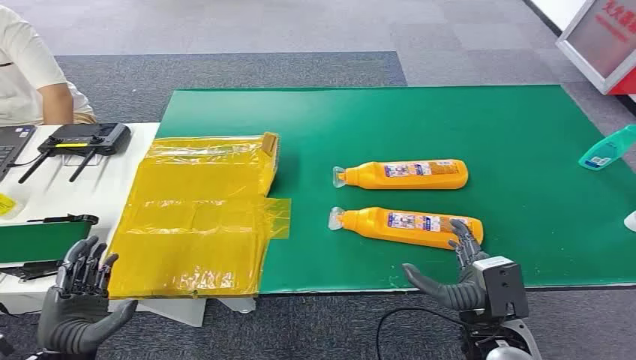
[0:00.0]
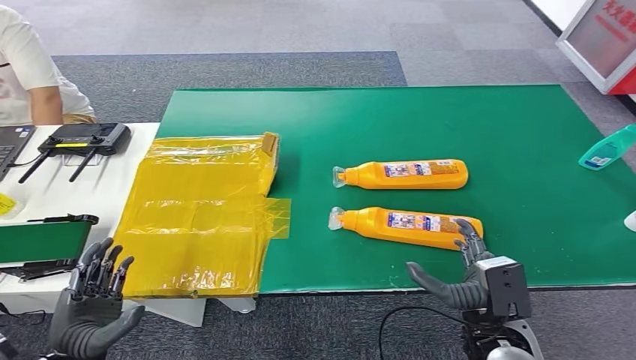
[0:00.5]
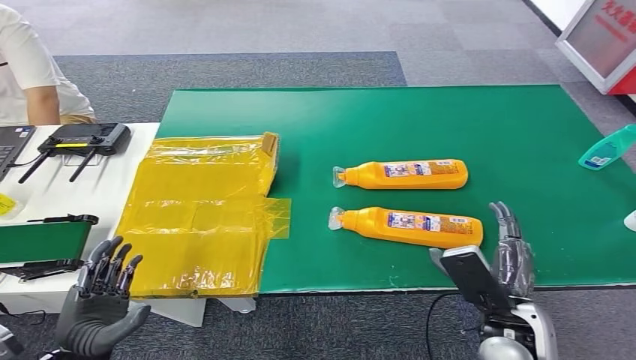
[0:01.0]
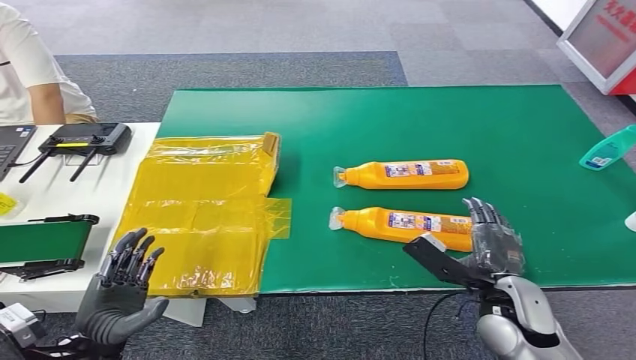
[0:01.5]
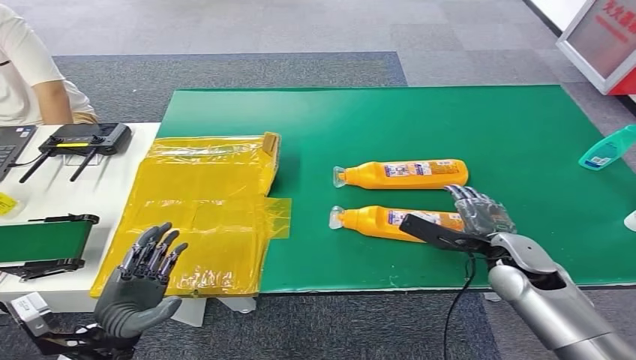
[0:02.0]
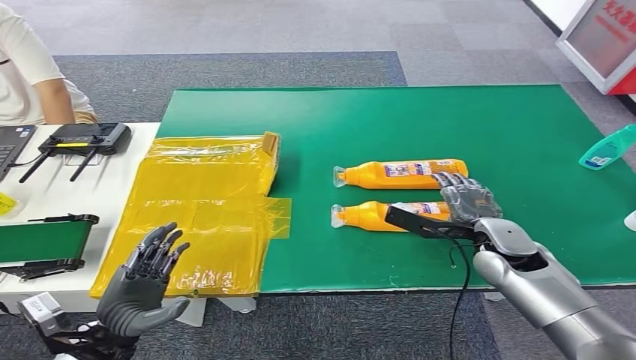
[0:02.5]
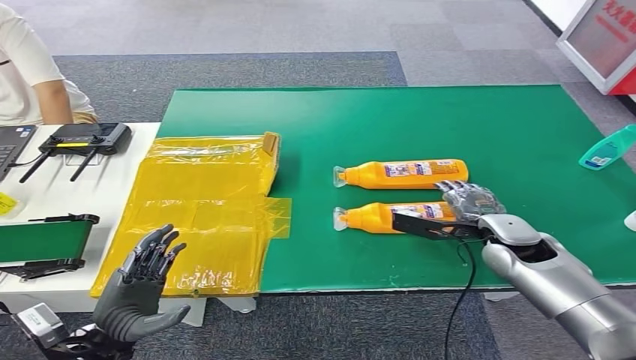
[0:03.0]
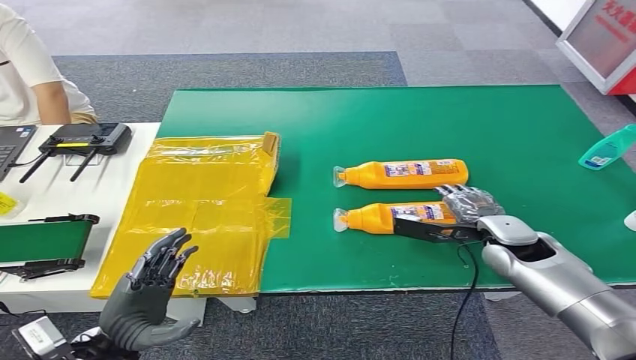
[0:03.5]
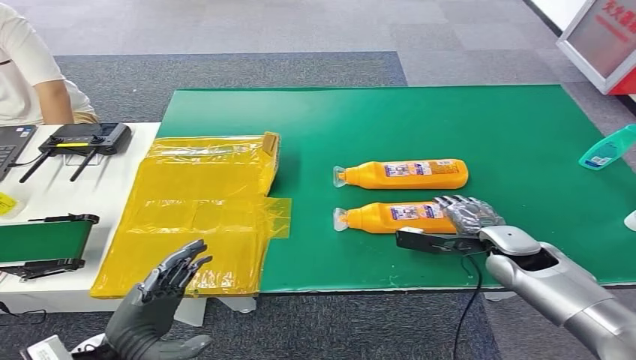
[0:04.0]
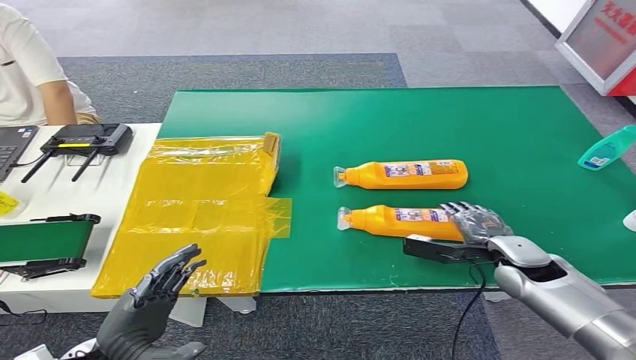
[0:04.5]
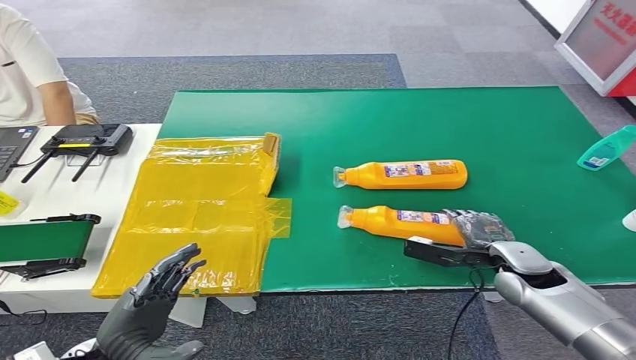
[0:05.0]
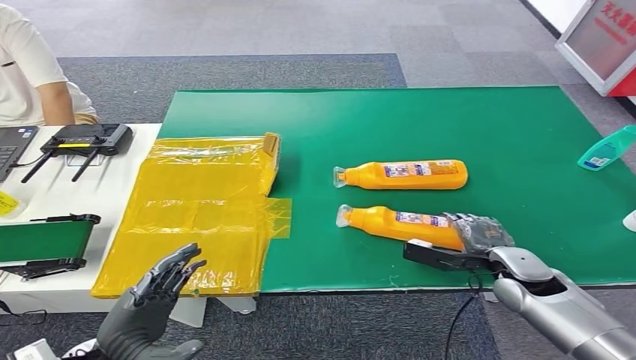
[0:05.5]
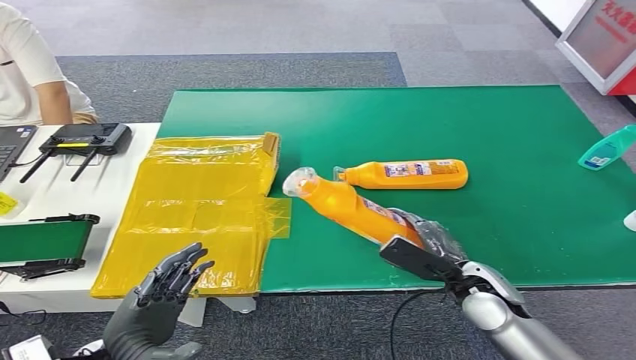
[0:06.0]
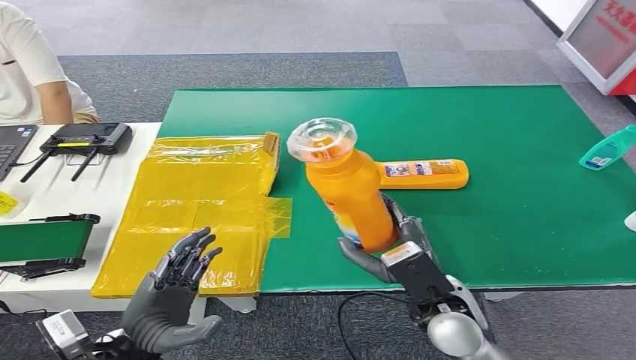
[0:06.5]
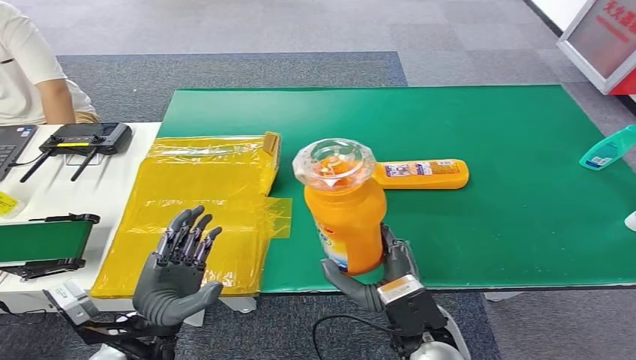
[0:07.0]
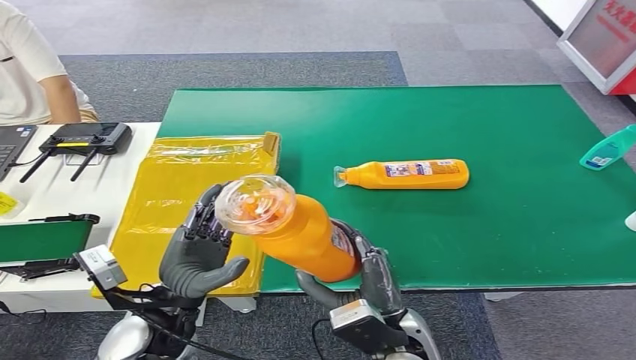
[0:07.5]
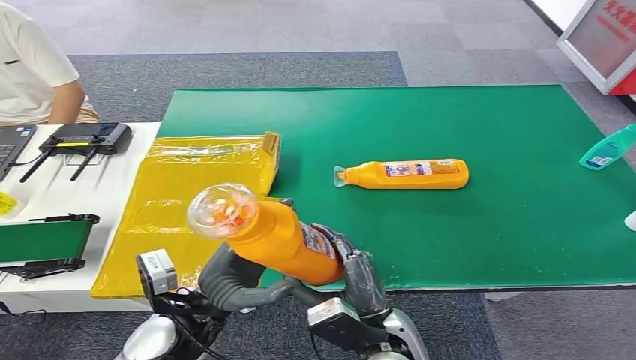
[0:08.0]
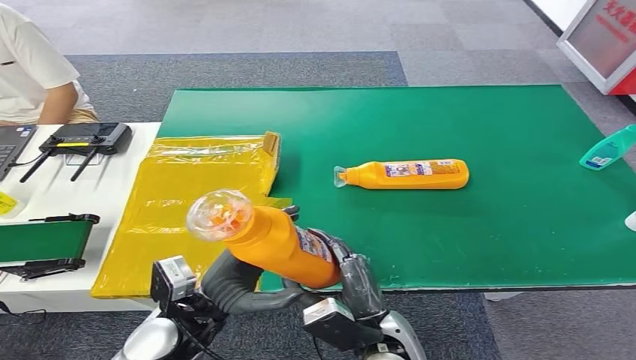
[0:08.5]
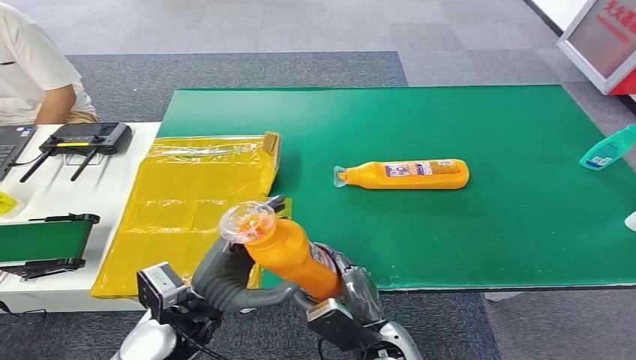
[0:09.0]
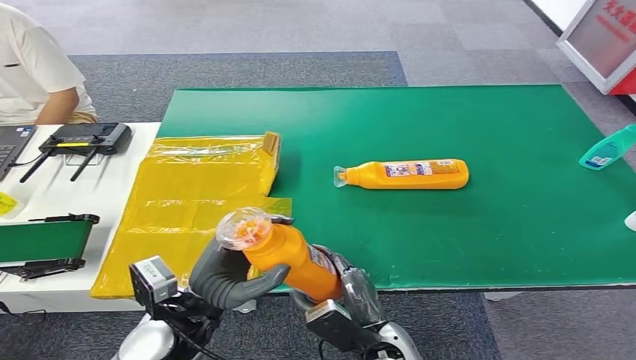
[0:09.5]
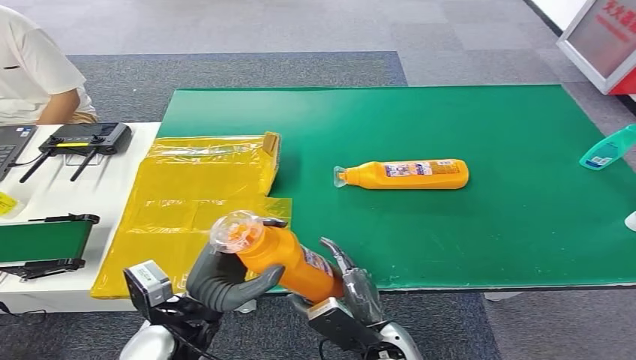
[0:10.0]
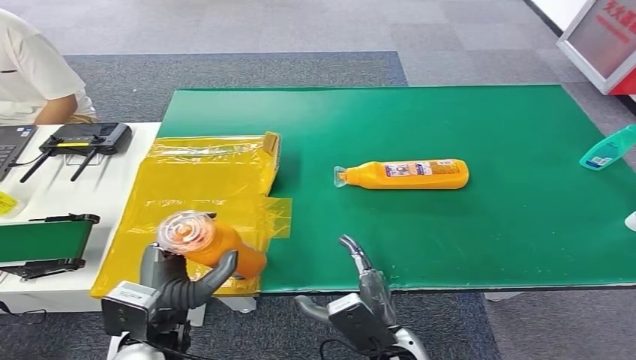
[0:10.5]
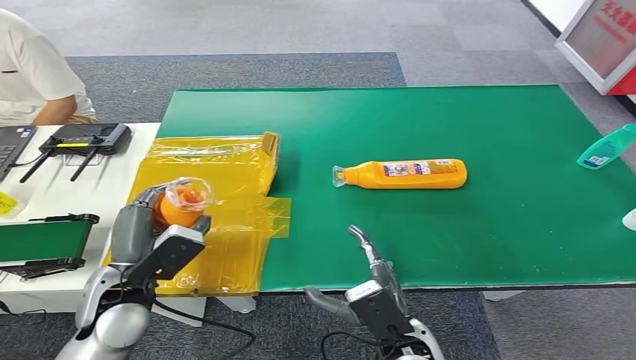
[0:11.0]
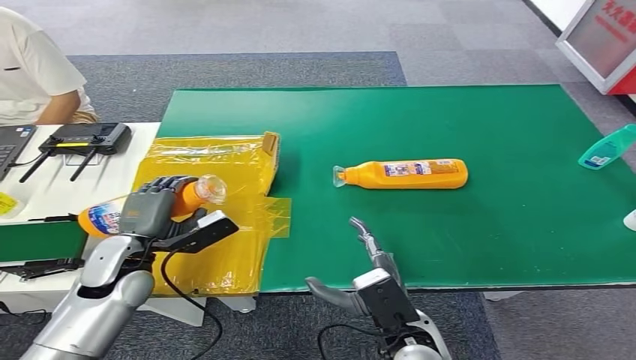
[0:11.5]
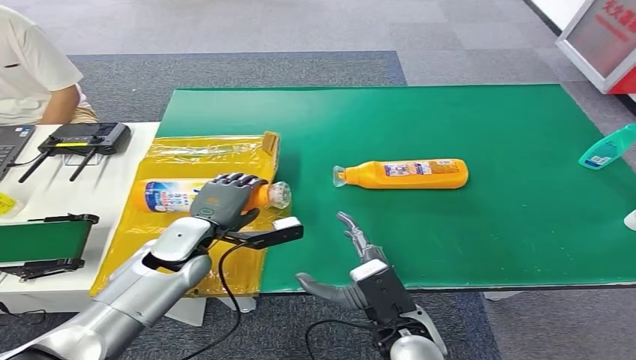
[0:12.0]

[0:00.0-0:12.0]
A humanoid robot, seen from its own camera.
Step, 0:00.0 to 0:07.0: Pick up the bottle from the table.
Step, 0:07.5 to 0:12.0: Turn the bottle to the front side.
0:04.0 to 0:06.0: The right hand heads backward and to the left, covering about 10 cm.
0:06.0 to 0:08.0: The right hand moves to the left and backward, some 15 cm; the left hand heads to the right and forward, covering some 10 cm.
0:08.0 to 0:10.0: The right hand heads downward, covering roughly 5 cm.
0:10.0 to 0:12.0: The left hand travels forward by about 15 cm. The right hand changes place by about 5 cm.

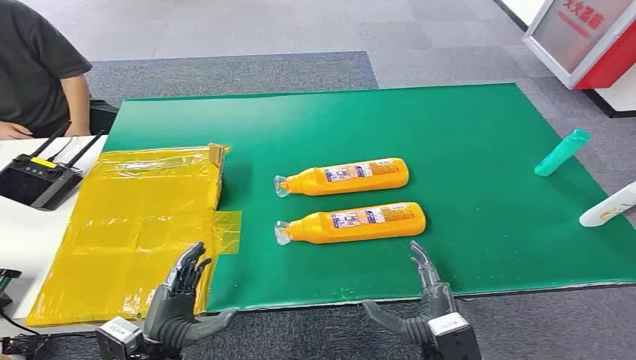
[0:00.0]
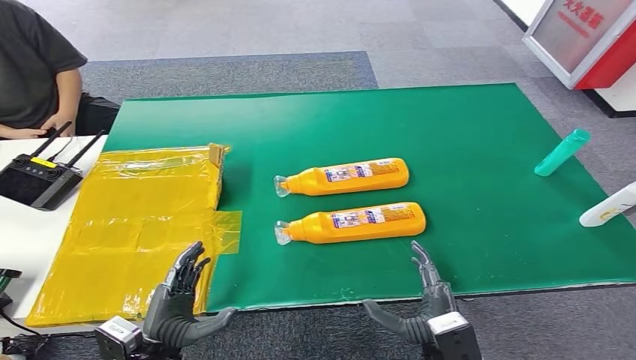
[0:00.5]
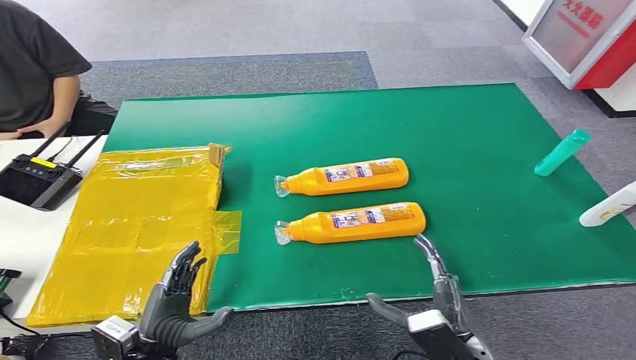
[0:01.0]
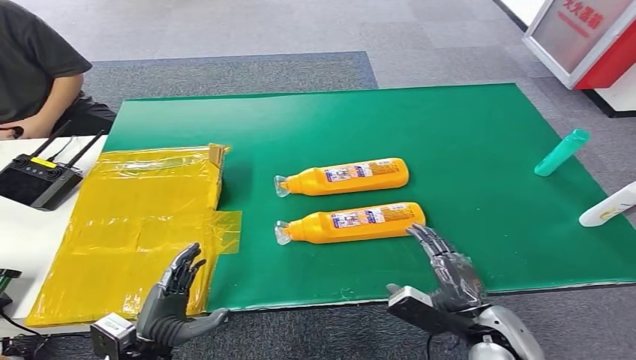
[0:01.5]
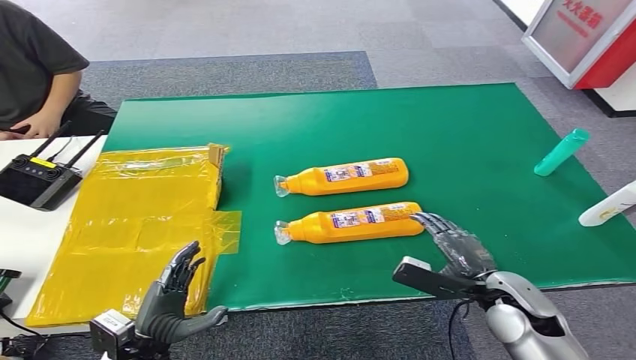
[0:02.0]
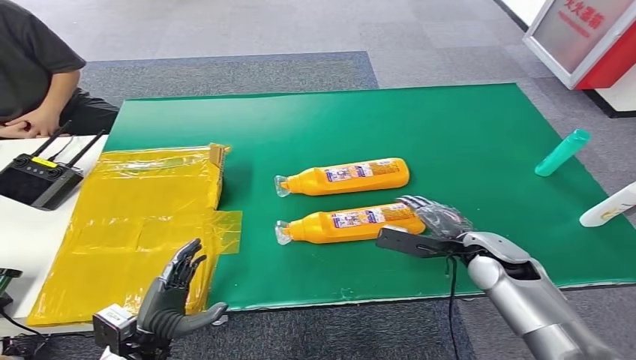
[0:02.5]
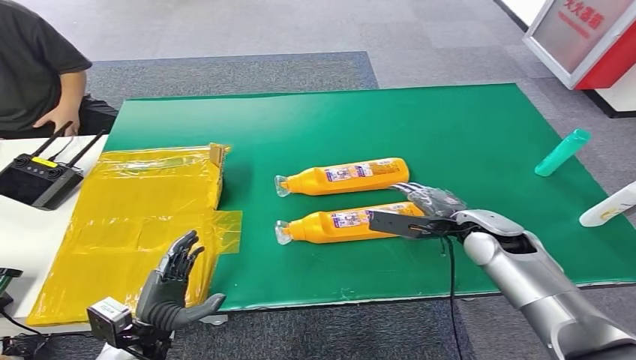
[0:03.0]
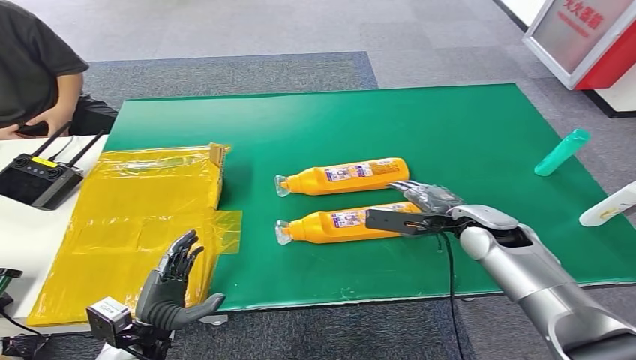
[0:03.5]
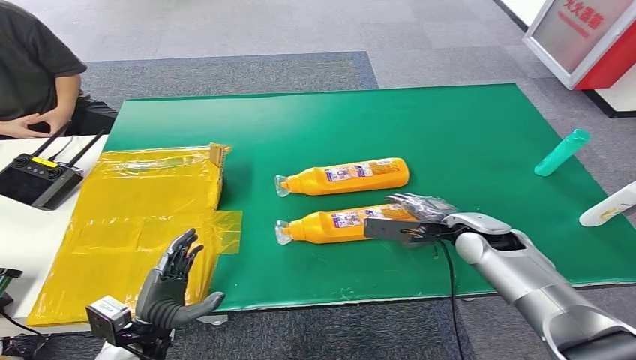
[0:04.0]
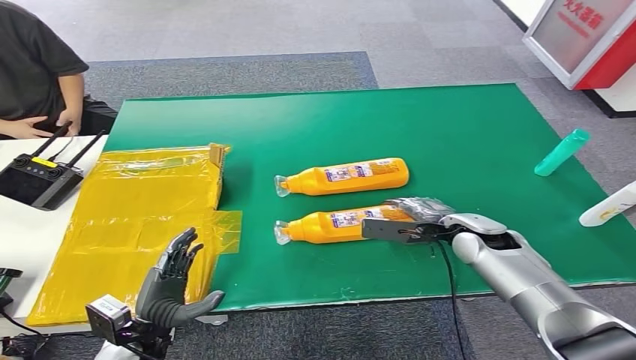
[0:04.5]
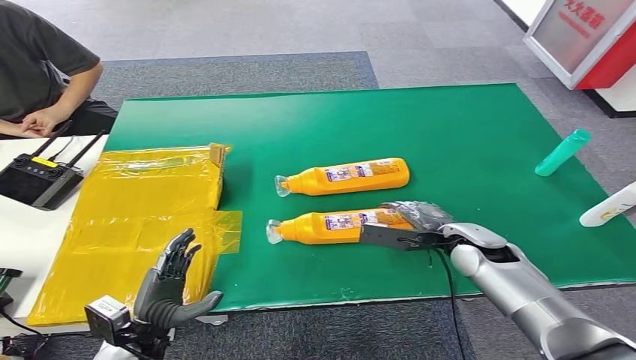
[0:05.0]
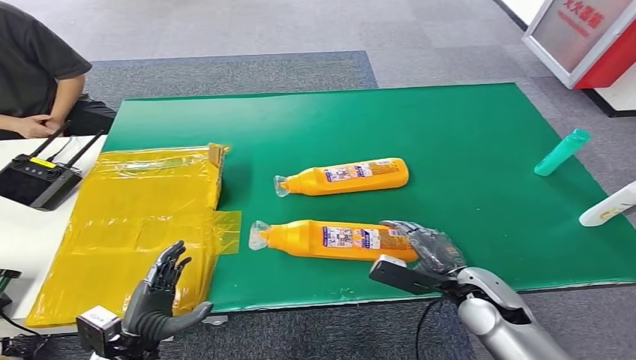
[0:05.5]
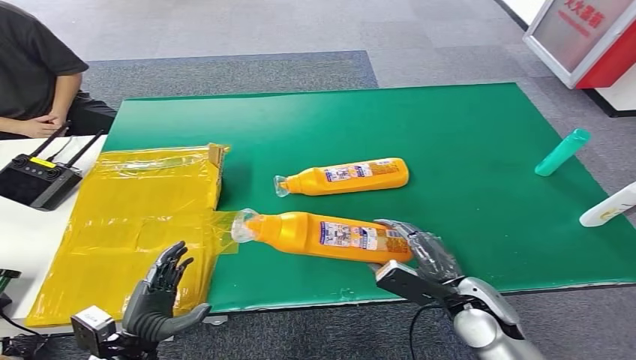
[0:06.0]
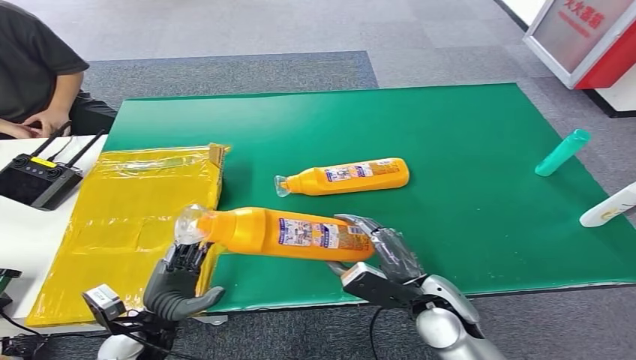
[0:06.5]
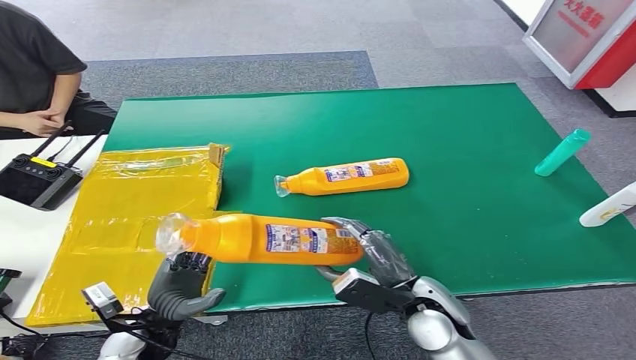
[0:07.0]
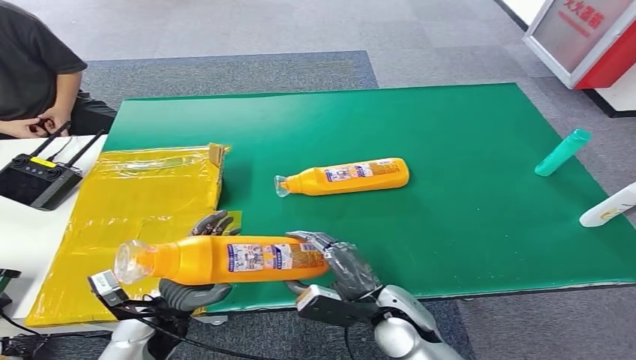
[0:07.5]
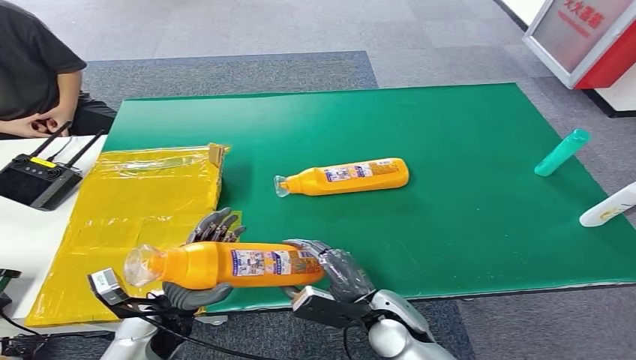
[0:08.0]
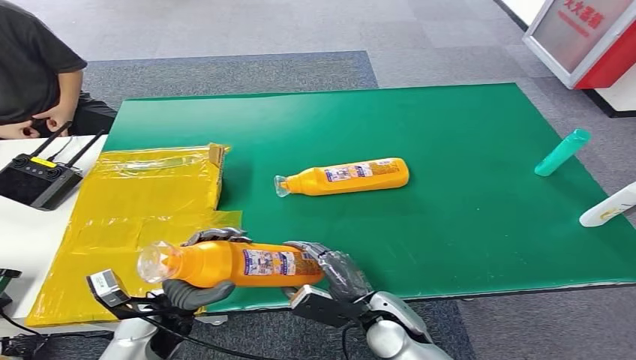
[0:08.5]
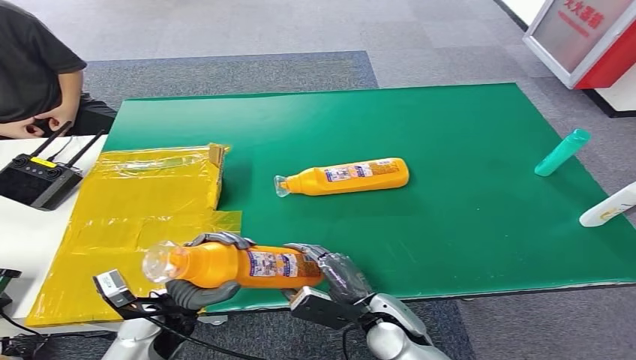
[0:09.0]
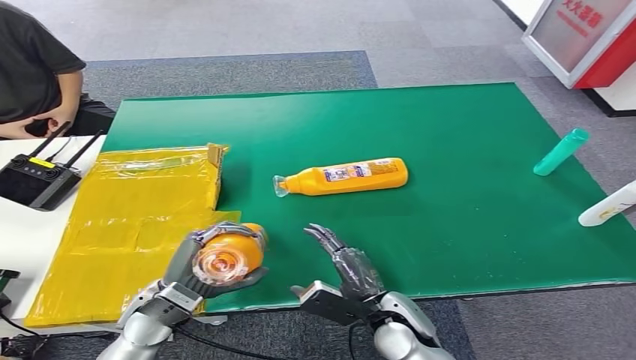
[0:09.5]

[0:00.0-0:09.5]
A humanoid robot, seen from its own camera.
Step, 0:00.0 to 0:06.0: Pick up the bottle from the table.
0:02.0 to 0:04.0: The right hand moves forward, about 15 cm.
0:04.0 to 0:05.5: The right hand is displaced backward by some 10 cm.
0:05.5 to 0:07.5: The left hand is displaced forward by roughly 5 cm, while the right hand shifts roughly 15 cm to the left.
